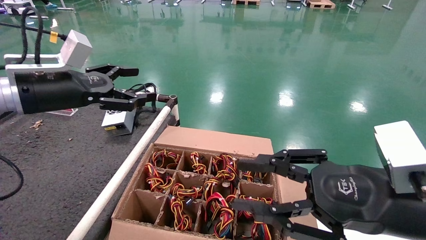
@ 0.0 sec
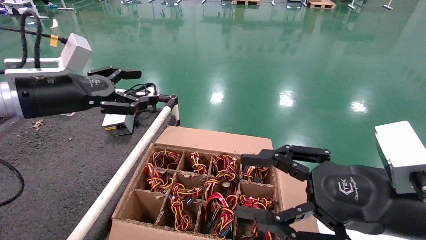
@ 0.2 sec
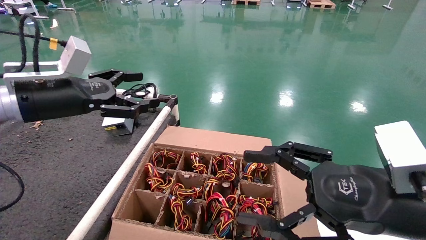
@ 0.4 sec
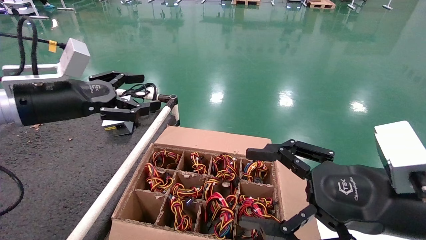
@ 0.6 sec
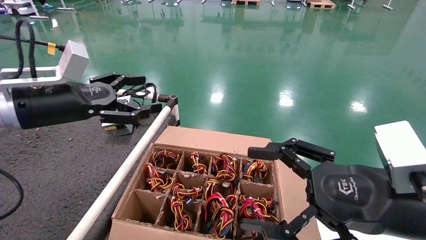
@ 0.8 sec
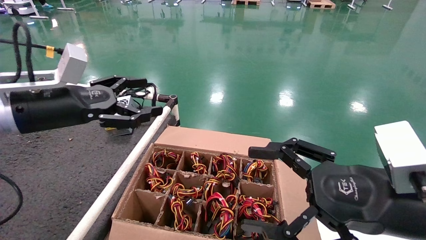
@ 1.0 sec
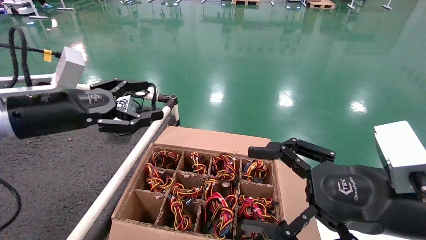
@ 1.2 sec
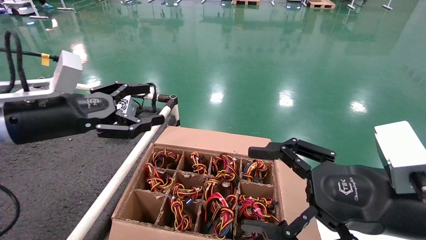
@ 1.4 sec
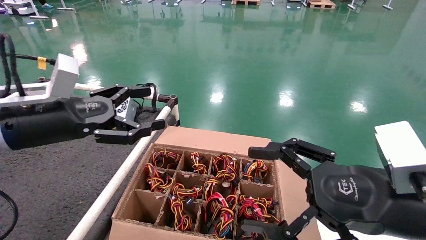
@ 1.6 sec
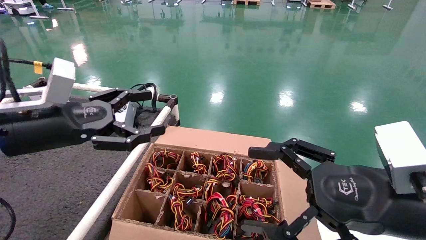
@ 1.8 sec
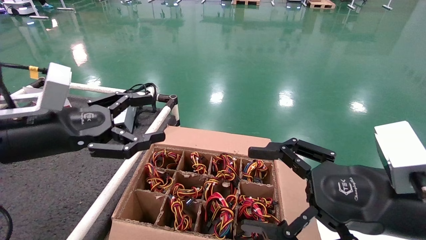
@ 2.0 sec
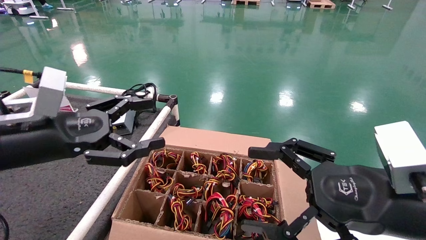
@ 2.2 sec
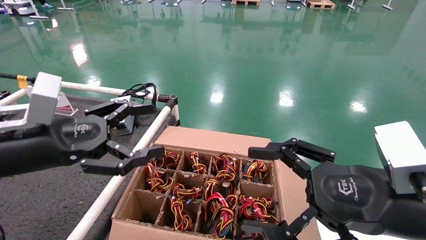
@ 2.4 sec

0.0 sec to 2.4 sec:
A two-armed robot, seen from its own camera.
0.0 sec to 1.2 sec: The right gripper opens.
1.2 sec to 2.4 sec: The left gripper shifts roughly 5 cm backward.
